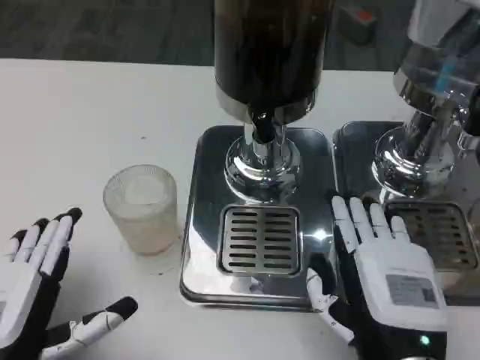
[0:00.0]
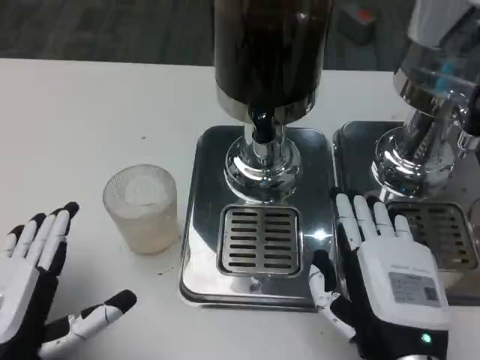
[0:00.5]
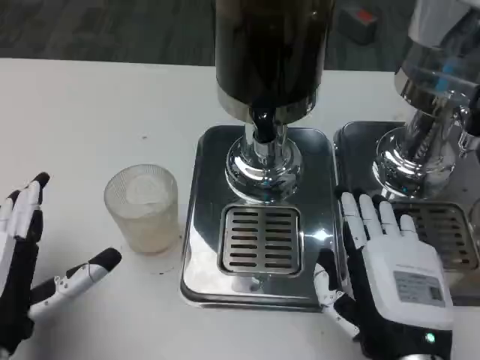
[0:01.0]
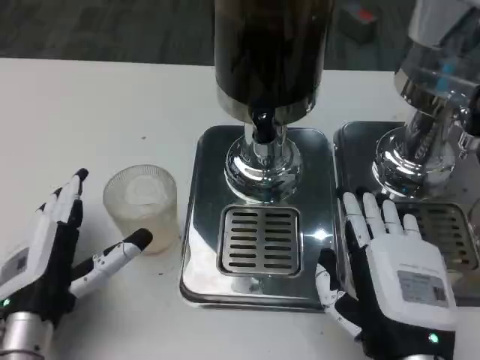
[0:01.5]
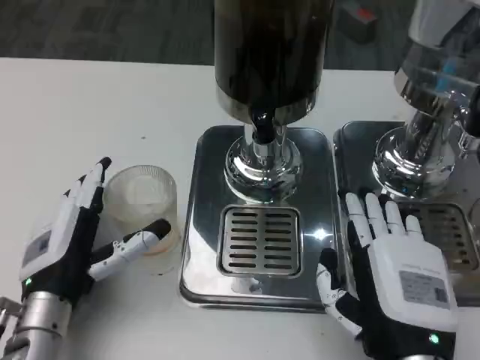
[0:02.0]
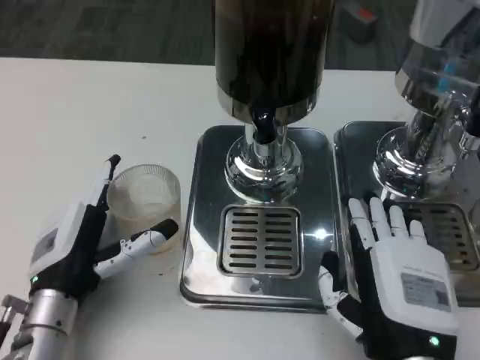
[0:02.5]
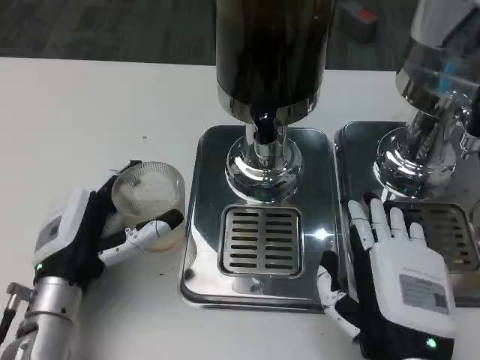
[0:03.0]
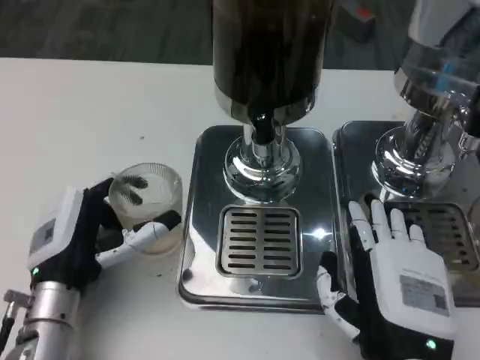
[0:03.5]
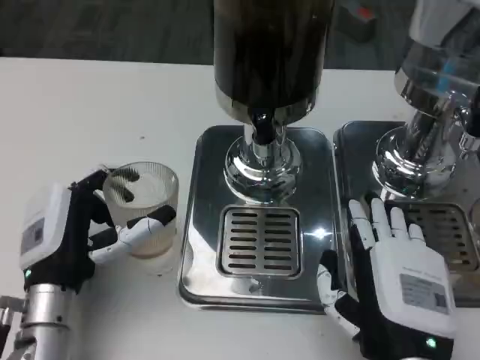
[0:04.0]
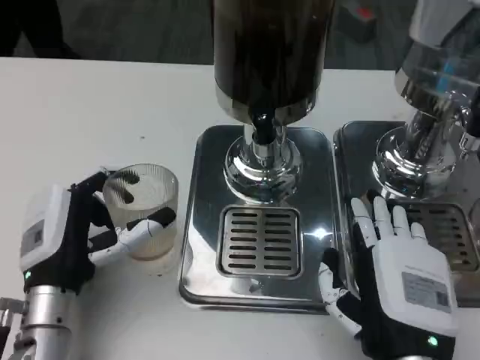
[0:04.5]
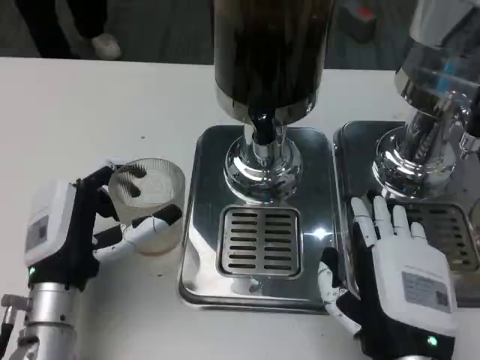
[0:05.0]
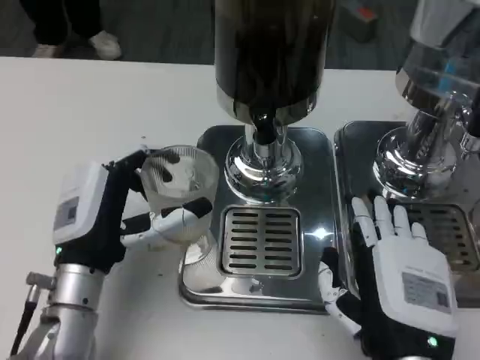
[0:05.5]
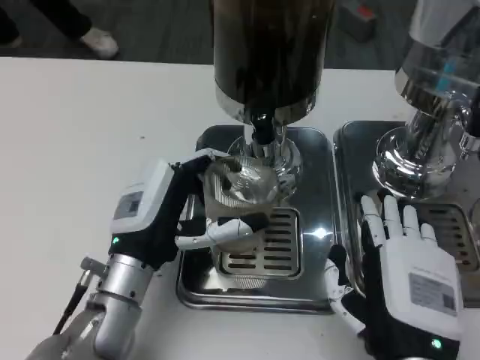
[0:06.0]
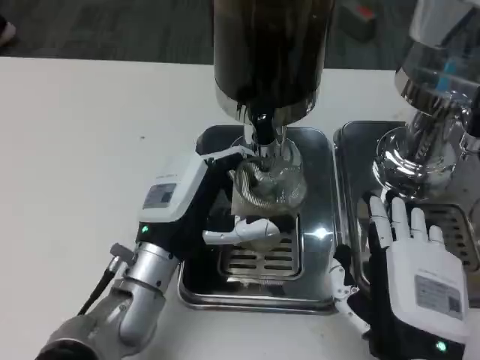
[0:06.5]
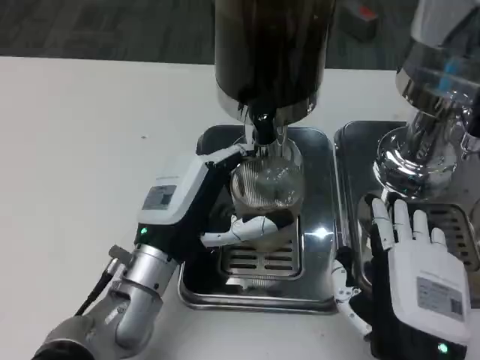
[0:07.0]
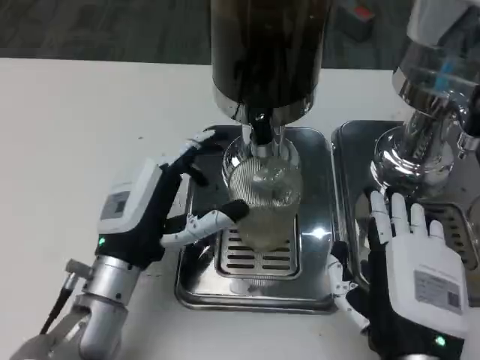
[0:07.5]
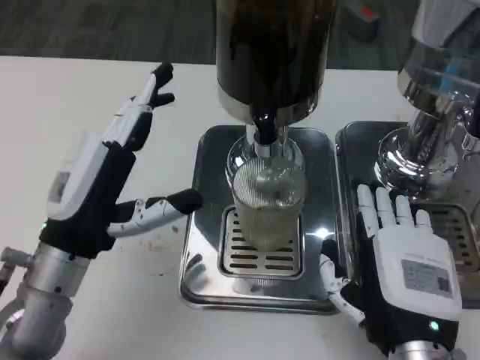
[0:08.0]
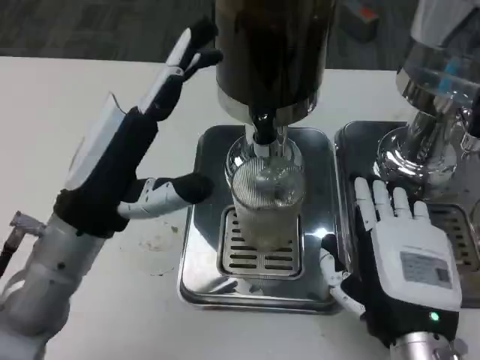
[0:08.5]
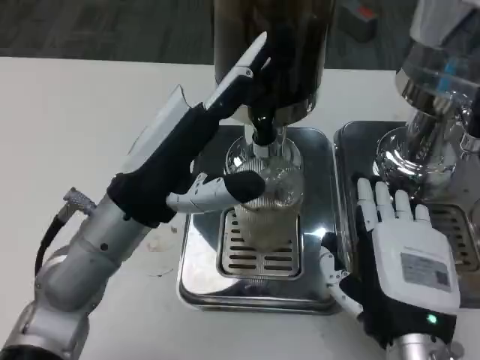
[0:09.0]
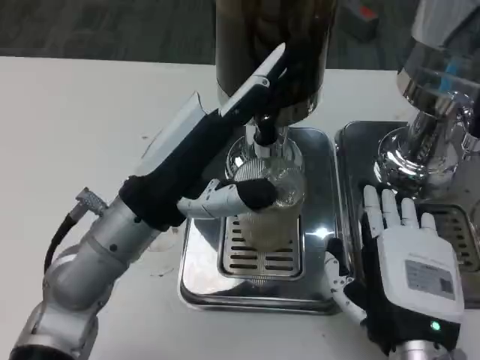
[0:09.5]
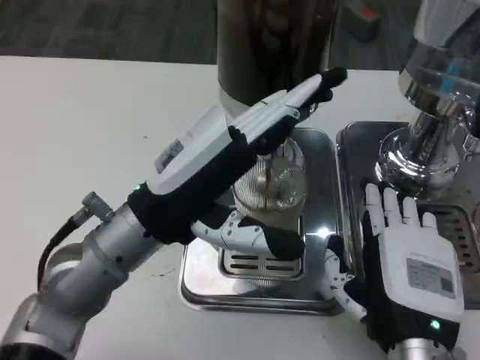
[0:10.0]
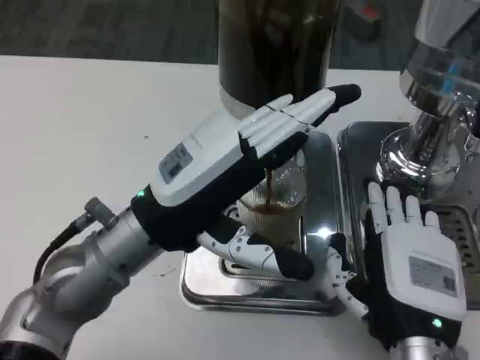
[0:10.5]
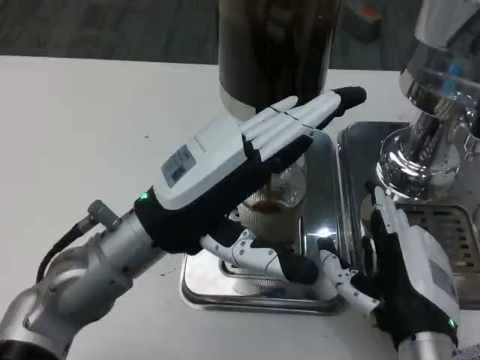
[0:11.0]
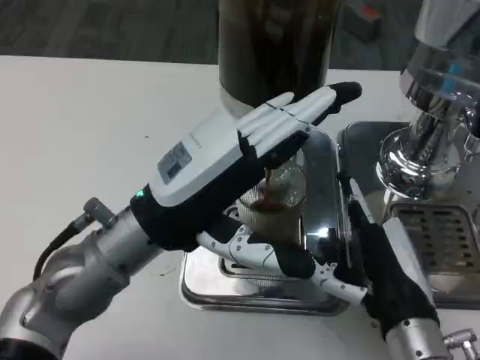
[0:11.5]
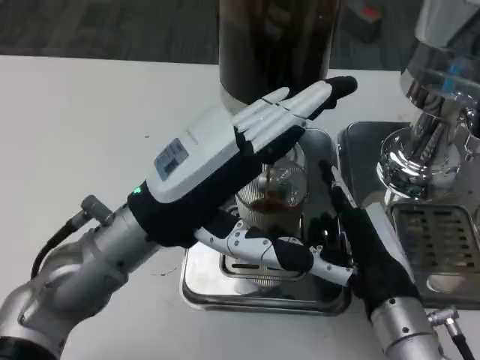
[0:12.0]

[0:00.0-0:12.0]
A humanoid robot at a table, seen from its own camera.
Task of the whole recording: Grasp the cup under the faucet to collect the drink, then remove the cup.
0:00.0 to 0:02.0: The left hand is displaced forward by about 10 cm.
0:02.0 to 0:04.0: The hands move only a little.
0:04.0 to 0:06.0: The left hand goes some 5 cm to the right.
0:06.0 to 0:08.0: The left hand shifts roughly 5 cm to the left.
0:08.0 to 0:10.0: The left hand is displaced to the right and upward by about 5 cm.

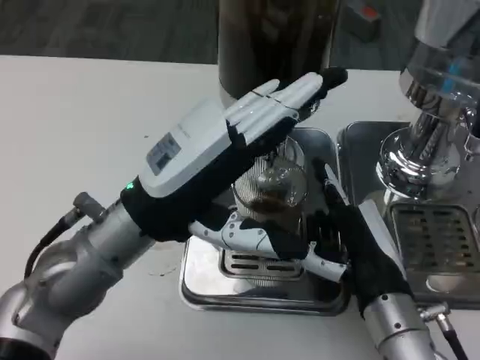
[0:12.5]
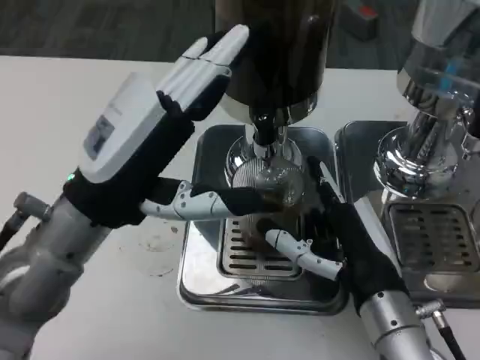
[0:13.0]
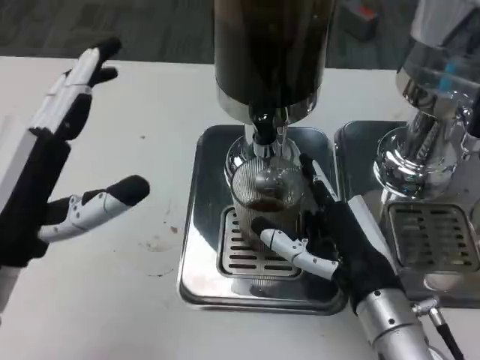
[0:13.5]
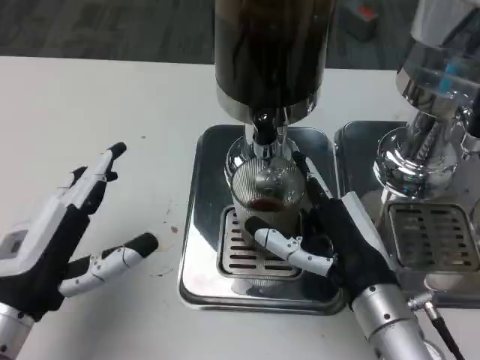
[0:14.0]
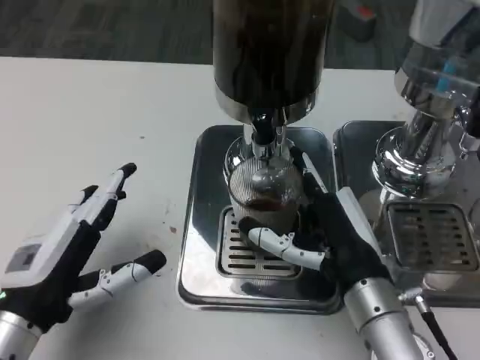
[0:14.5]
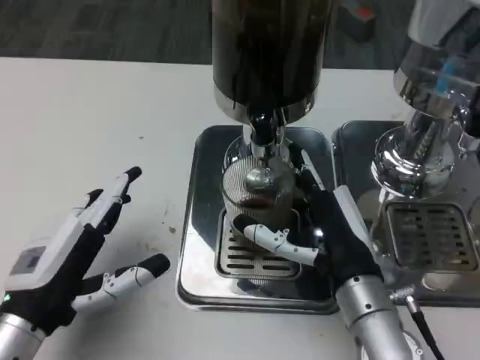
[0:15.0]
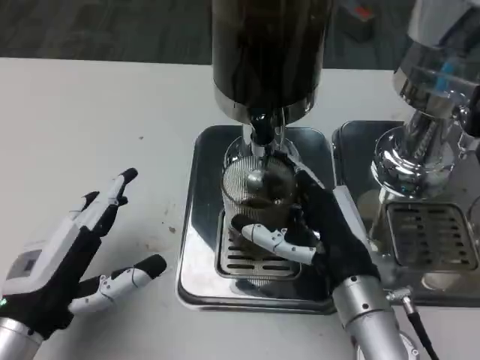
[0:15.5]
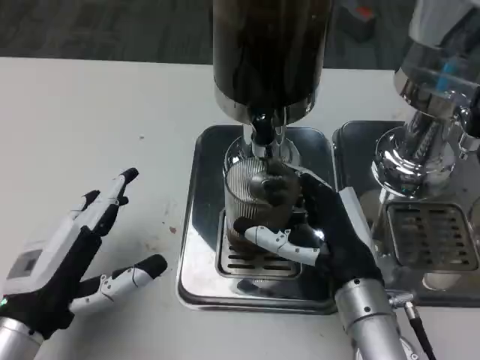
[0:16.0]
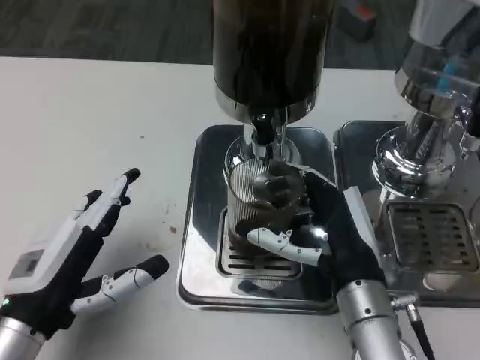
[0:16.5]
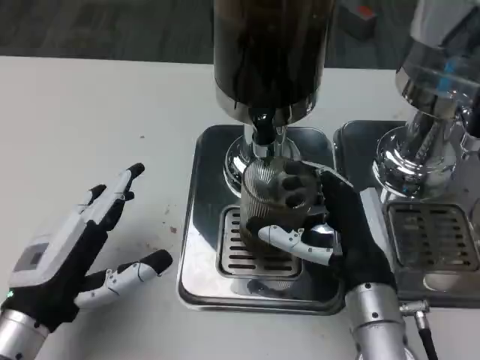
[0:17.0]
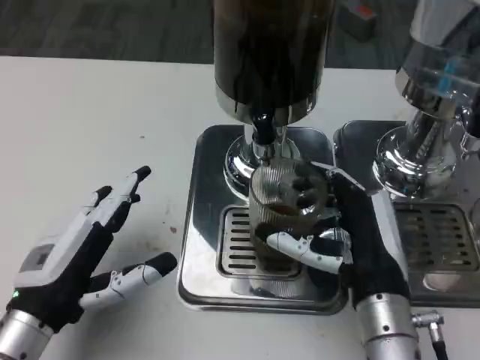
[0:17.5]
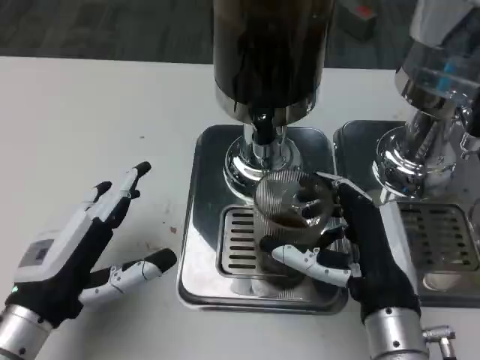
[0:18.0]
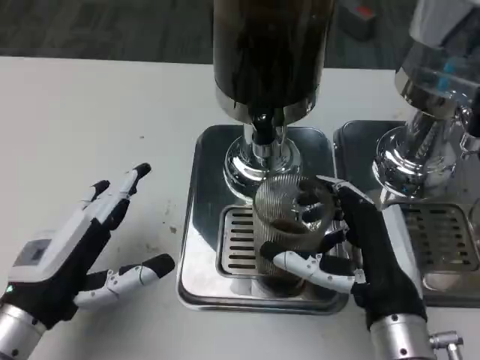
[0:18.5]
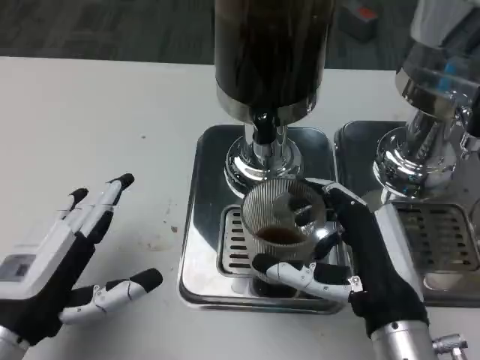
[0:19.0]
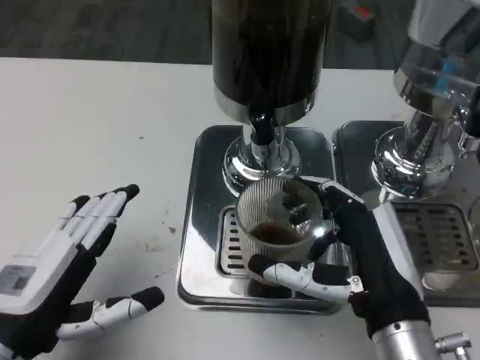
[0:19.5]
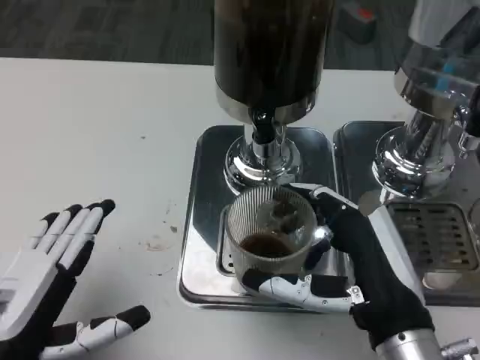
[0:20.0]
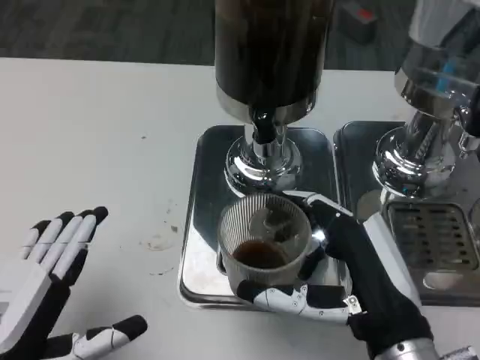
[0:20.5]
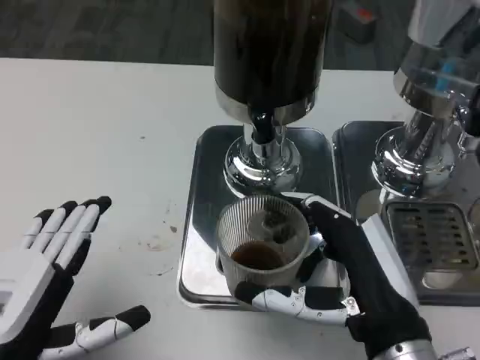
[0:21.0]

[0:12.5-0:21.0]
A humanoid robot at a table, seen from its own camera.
Task of the whole recording: Grasp the cup under the faucet to collect the drink, then remove the cup.
0:12.5 to 0:14.5: The left hand moves to the left, downward and backward, some 15 cm.
0:14.5 to 0:16.5: The hands make only small movements.
0:16.5 to 0:19.0: The right hand is displaced backward by about 5 cm.
0:19.0 to 0:21.0: The left hand ends up roughly 5 cm from where it was.

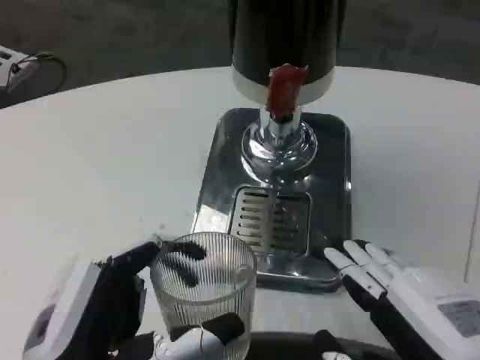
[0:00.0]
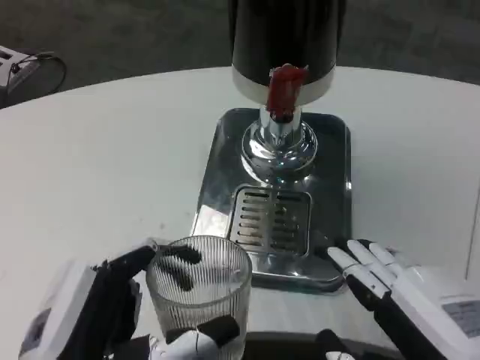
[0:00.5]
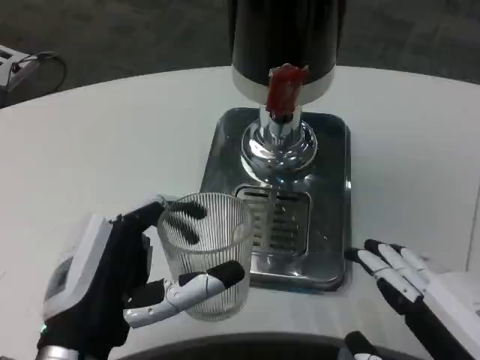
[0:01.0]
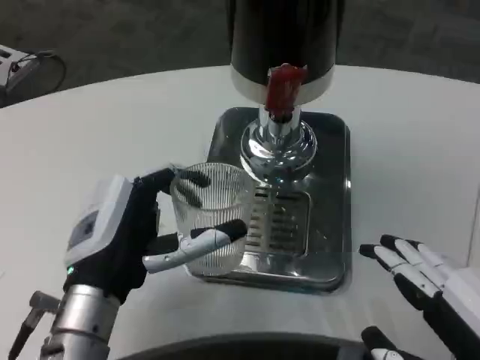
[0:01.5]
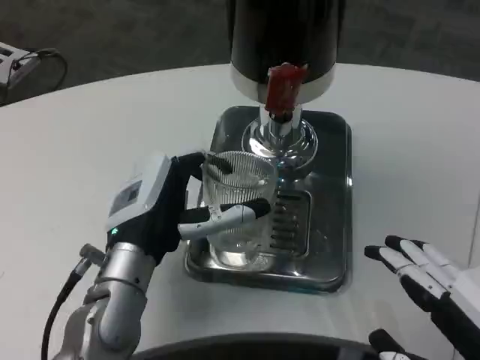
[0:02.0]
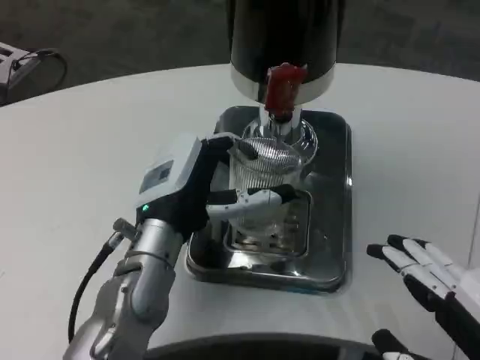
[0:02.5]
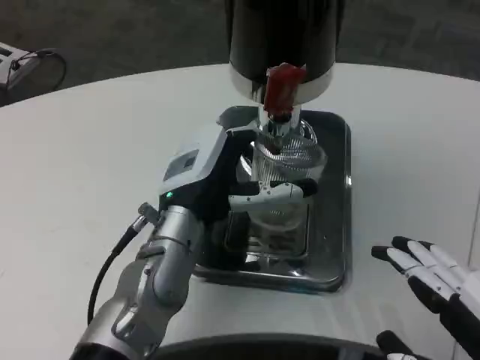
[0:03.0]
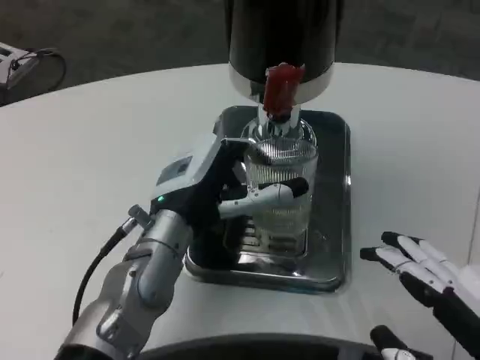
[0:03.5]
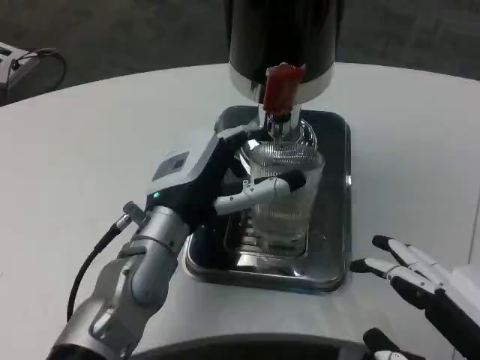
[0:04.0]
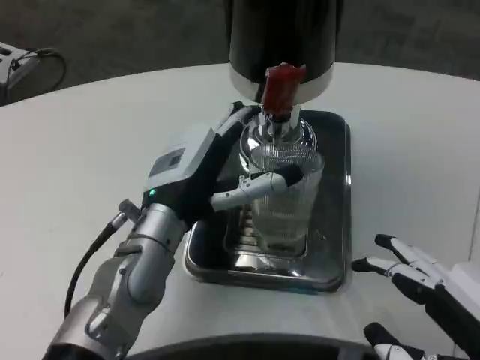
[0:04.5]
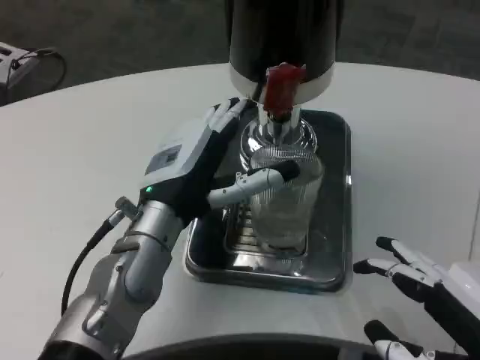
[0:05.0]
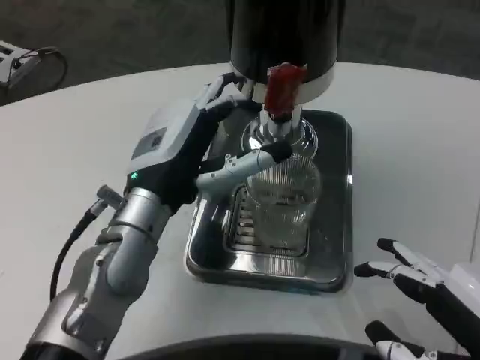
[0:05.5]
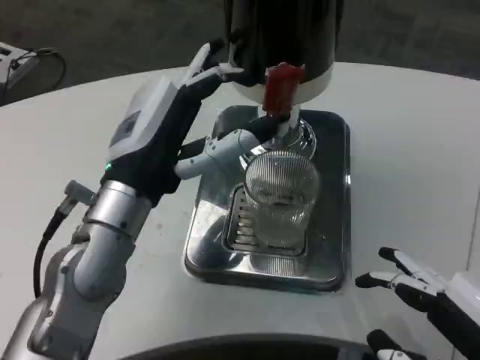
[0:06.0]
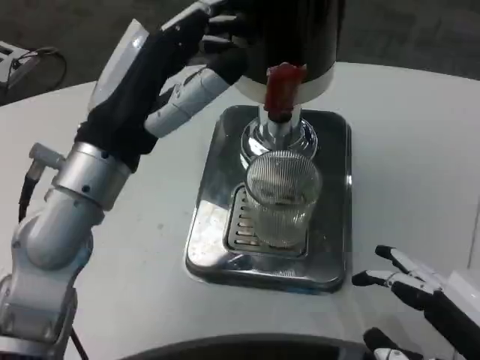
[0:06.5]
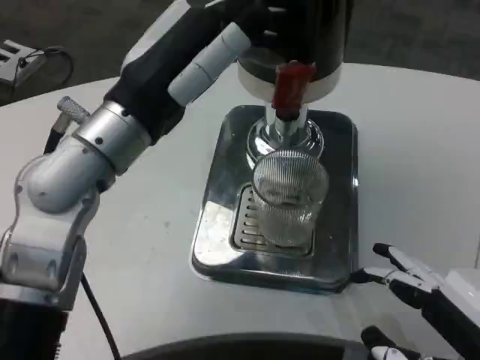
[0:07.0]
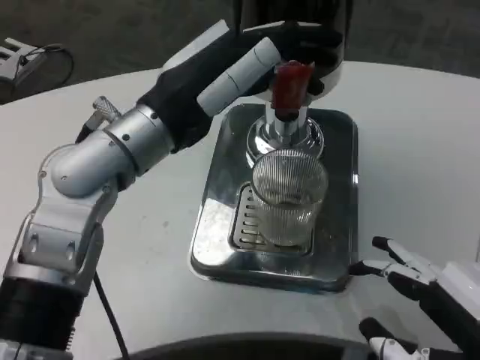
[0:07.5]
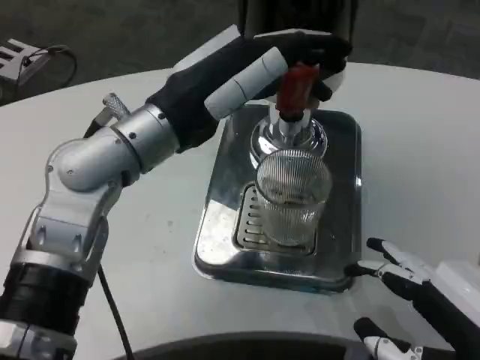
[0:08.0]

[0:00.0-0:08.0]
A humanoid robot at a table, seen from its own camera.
Task of the whole recording: Grasp the cup under the faucet to collect the drink, then remove the cup.
0:00.0 to 0:02.0: The left hand shifts approximately 15 cm forward.
0:02.0 to 0:04.0: There are only small adjustments of the hands.
0:04.0 to 0:06.0: The left hand changes place by some 5 cm.
0:06.0 to 0:08.0: The left hand travels upward by some 5 cm.
